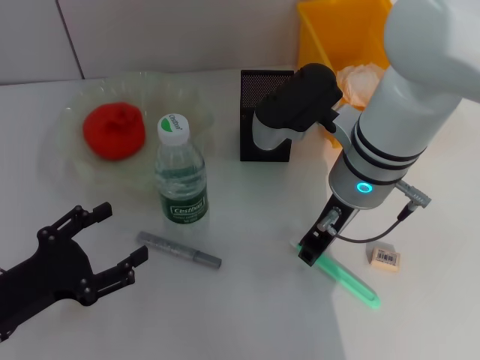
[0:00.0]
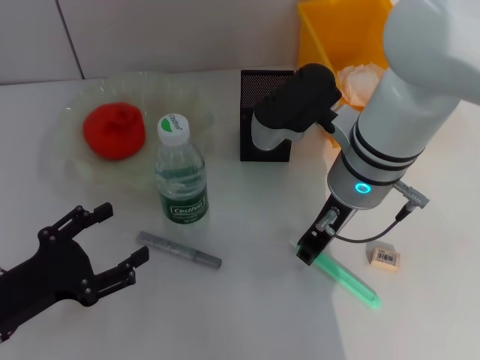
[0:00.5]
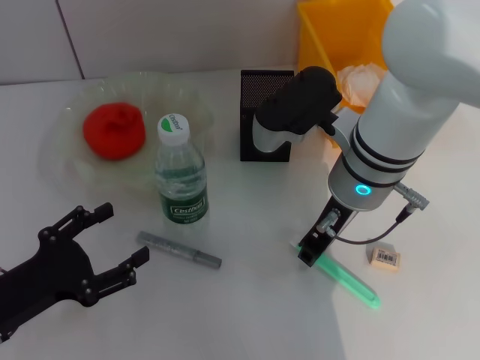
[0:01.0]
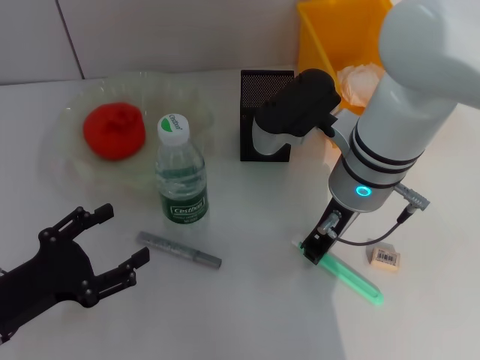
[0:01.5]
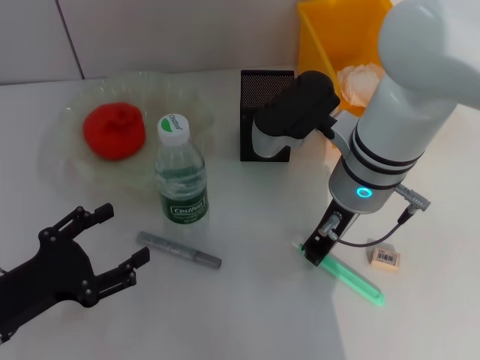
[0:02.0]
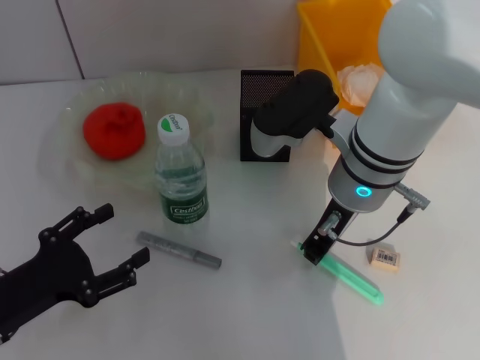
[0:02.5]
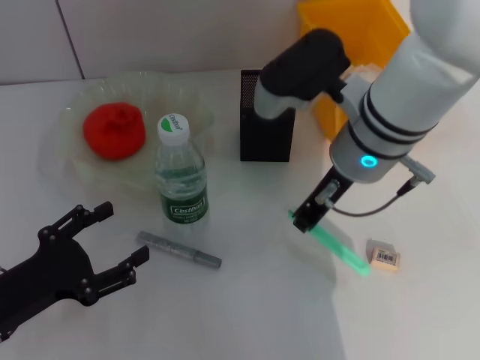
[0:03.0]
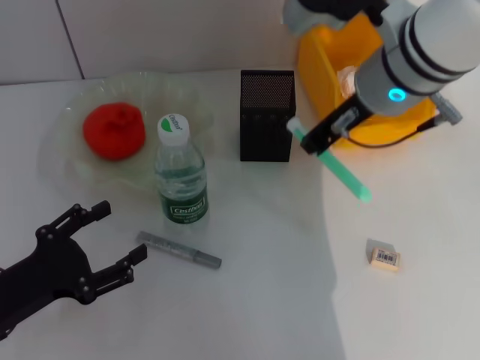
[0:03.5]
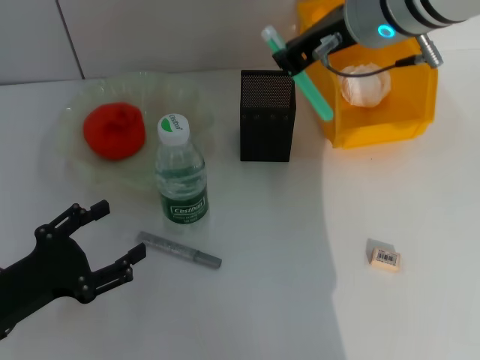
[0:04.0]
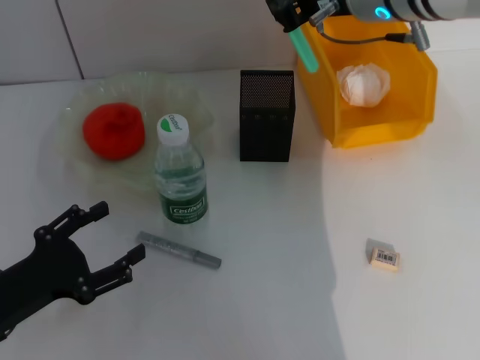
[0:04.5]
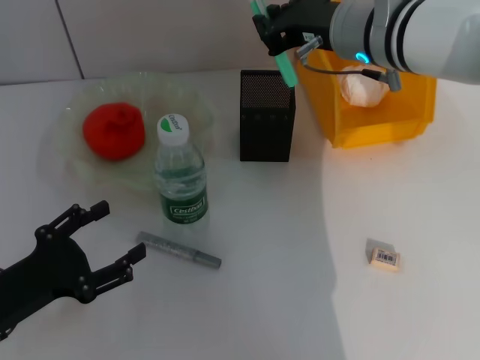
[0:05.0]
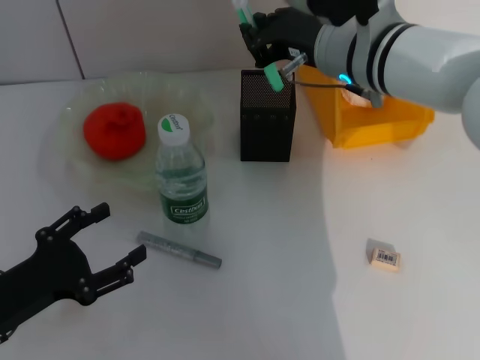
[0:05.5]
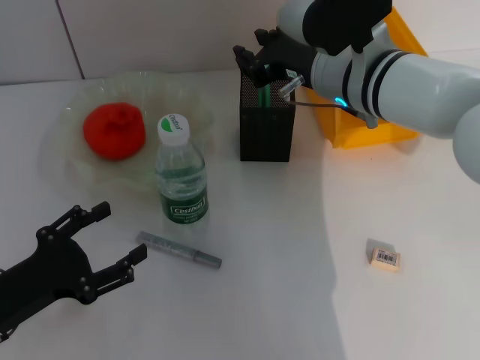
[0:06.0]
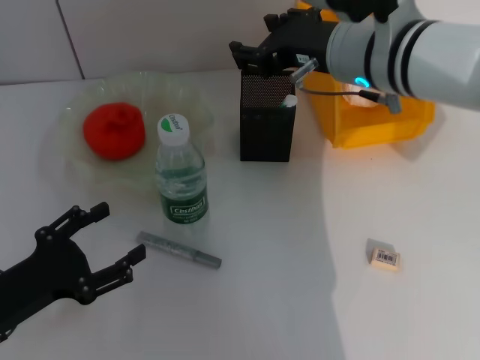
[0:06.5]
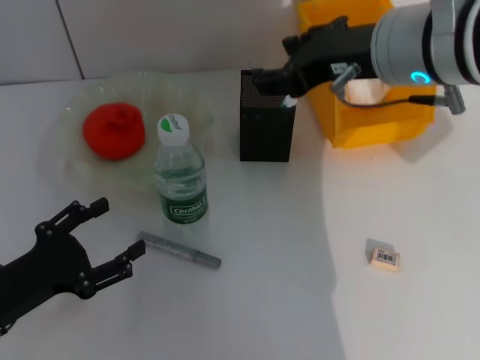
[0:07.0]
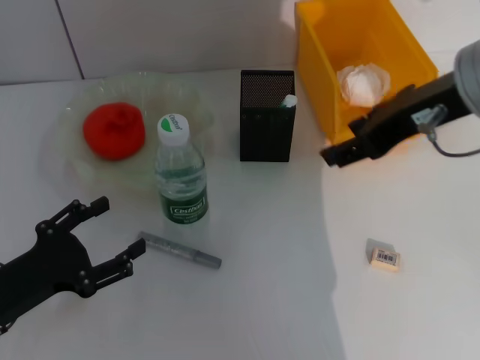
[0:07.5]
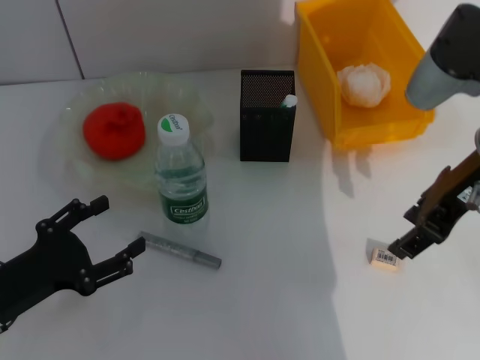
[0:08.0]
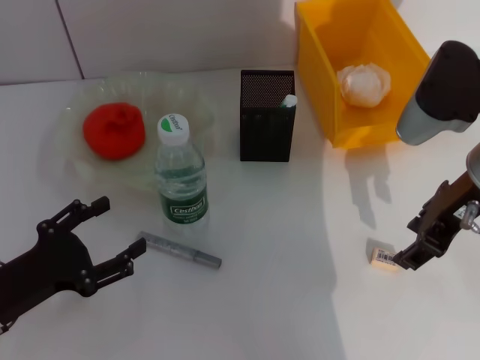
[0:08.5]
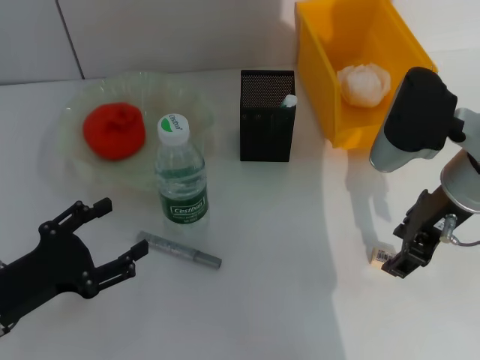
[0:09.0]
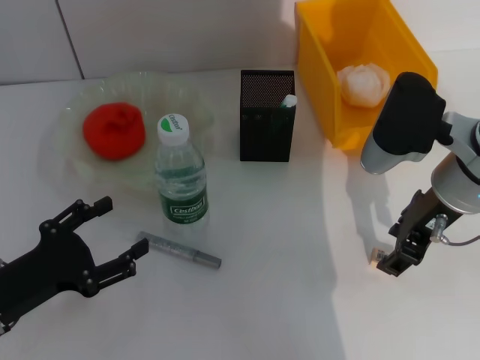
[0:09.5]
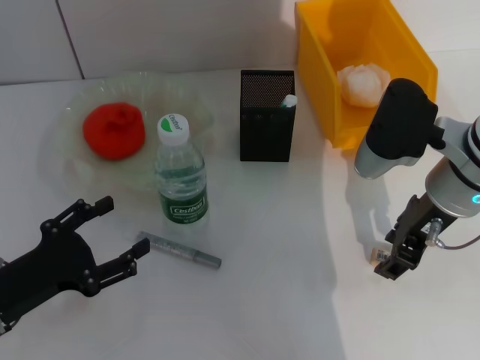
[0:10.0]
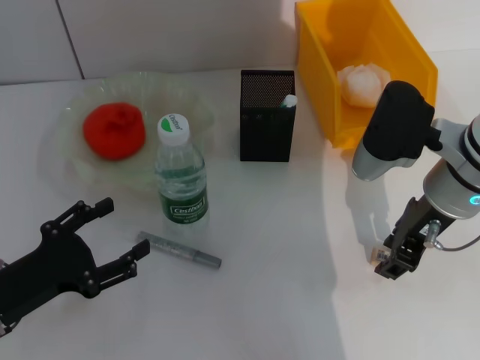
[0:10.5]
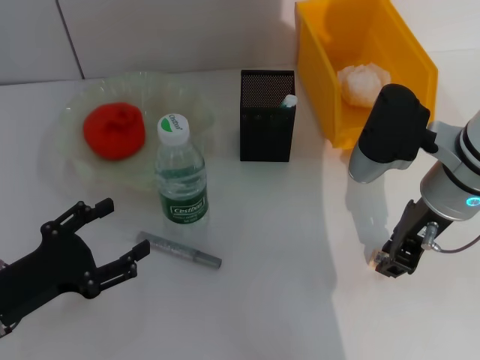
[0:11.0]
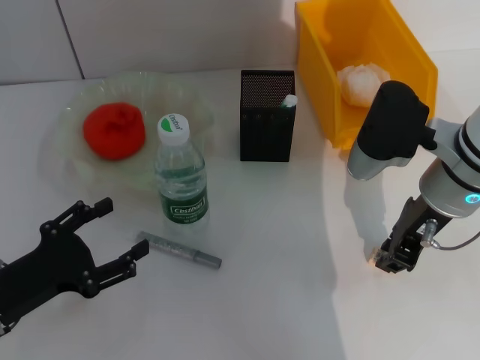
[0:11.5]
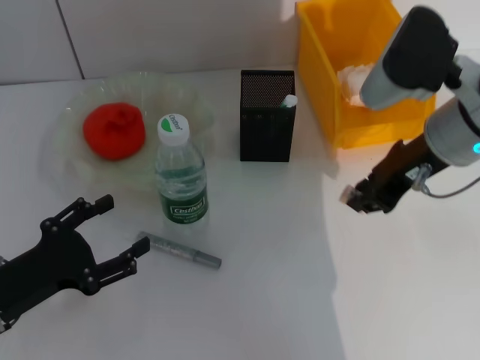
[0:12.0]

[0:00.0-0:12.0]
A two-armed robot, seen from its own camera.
Step, 0:00.0 to 0:02.0: Grab the blue utility knife with the right hand.
Step, 0:02.5 to 0:06.0: Place the blue utility knife into the pen holder with the right hand.
Step, 0:06.5 to 0:11.0: Grab the eraser with the right hand.
0:00.0 to 0:02.0: Both grippers stay put.
0:02.0 to 0:04.0: The right gripper shifts some 10 cm upward.
0:04.0 to 0:06.0: The right gripper travels downward by about 10 cm.
0:06.0 to 0:08.0: The right gripper goes approximately 10 cm to the right and backward, and opens up.
0:08.0 to 0:10.0: The right gripper goes some 5 cm downward.
0:10.0 to 0:12.0: The right gripper heads upward, covering about 5 cm, and closes up.

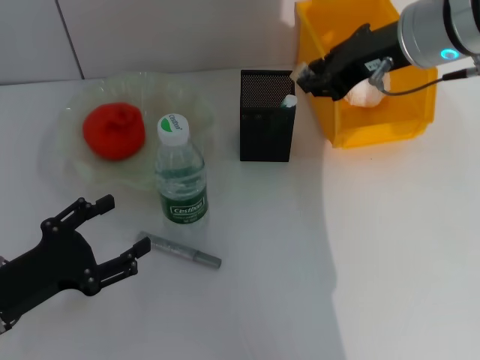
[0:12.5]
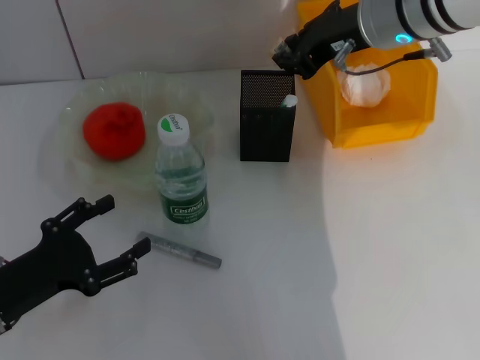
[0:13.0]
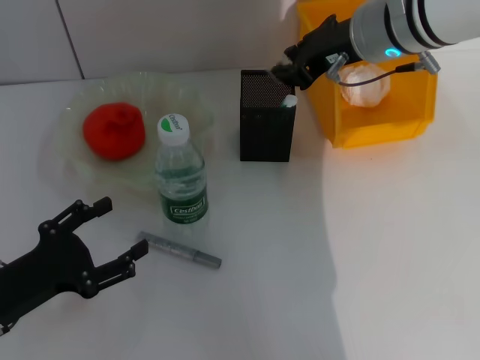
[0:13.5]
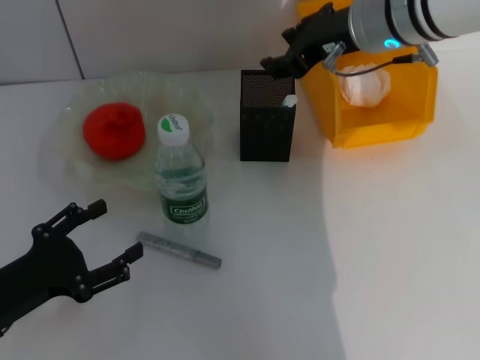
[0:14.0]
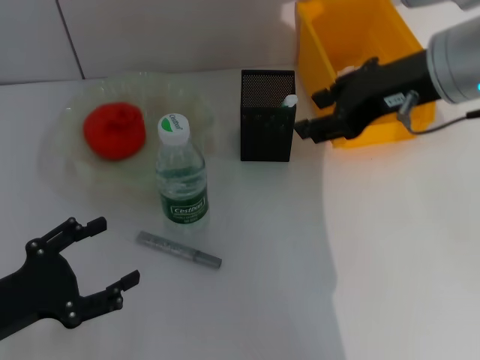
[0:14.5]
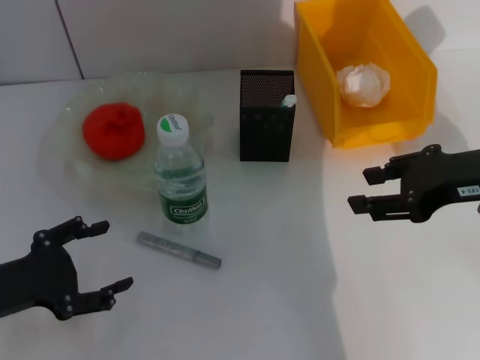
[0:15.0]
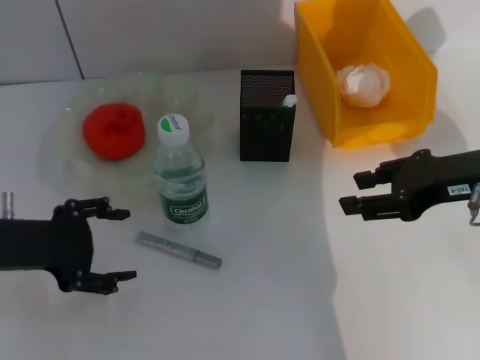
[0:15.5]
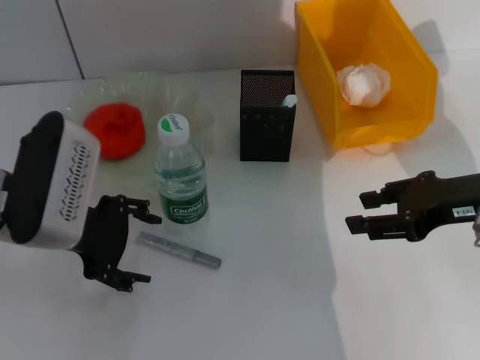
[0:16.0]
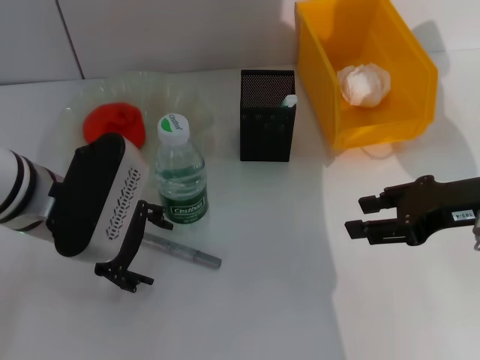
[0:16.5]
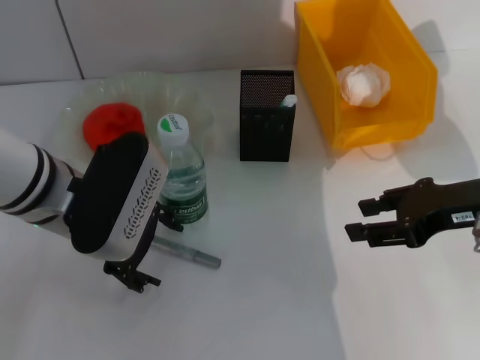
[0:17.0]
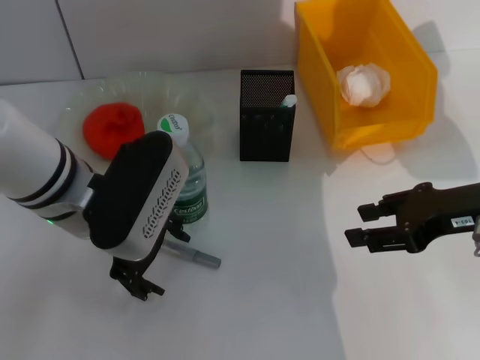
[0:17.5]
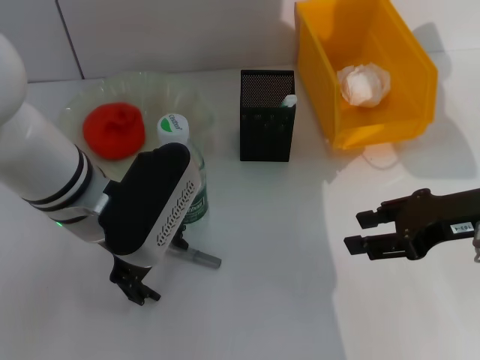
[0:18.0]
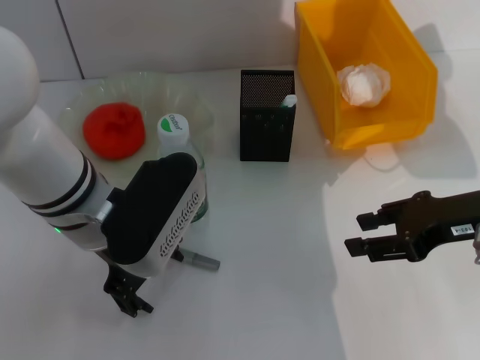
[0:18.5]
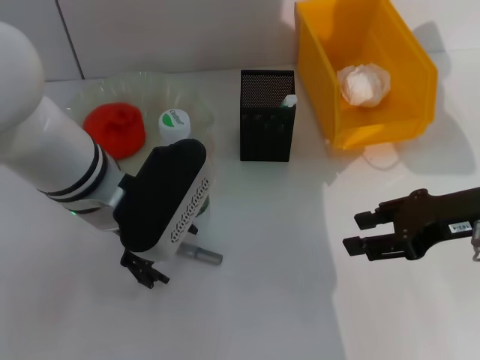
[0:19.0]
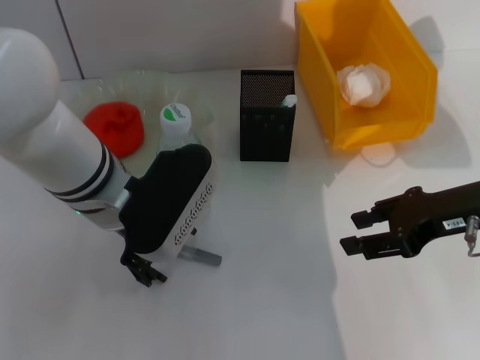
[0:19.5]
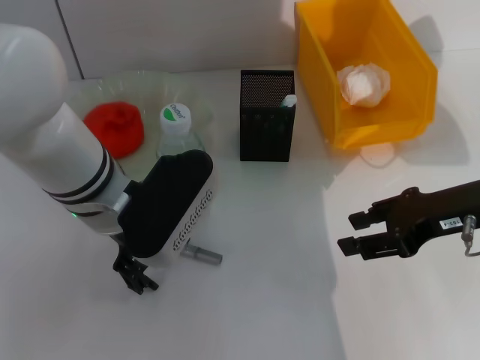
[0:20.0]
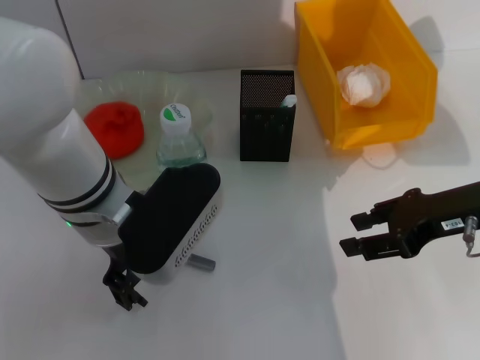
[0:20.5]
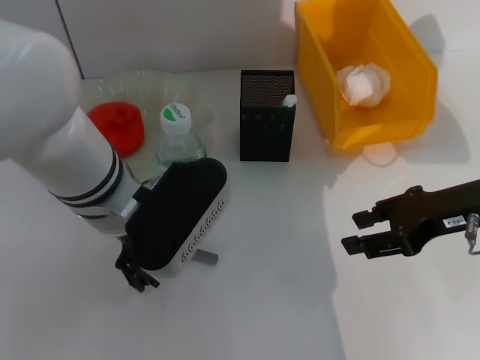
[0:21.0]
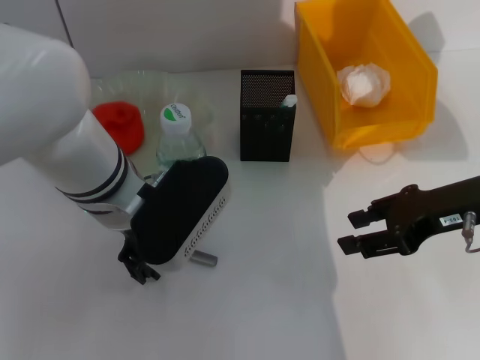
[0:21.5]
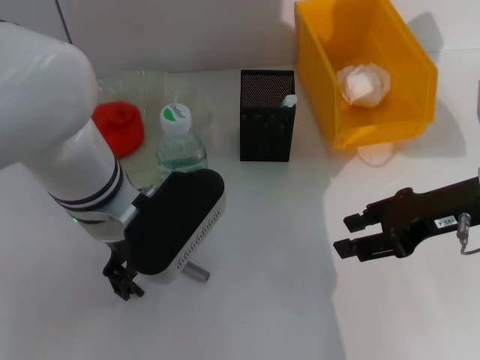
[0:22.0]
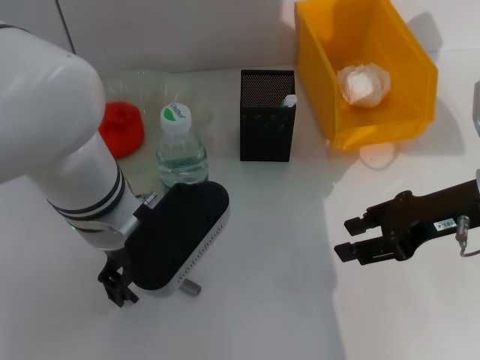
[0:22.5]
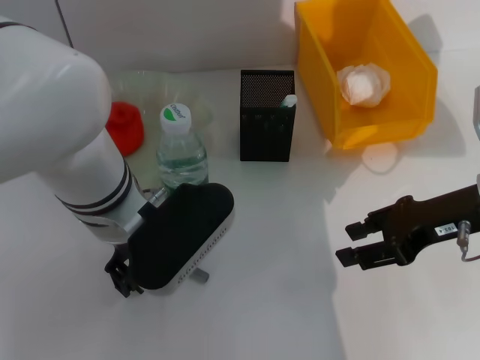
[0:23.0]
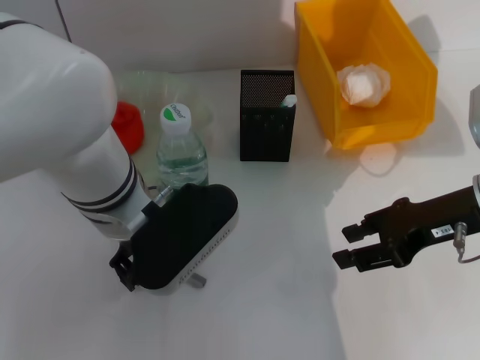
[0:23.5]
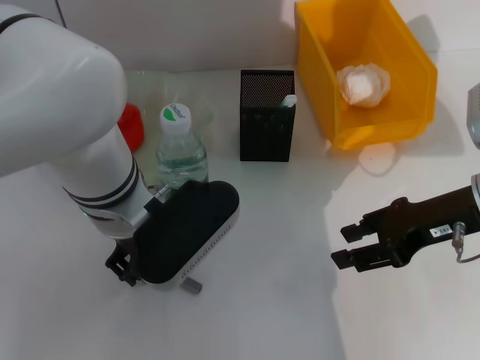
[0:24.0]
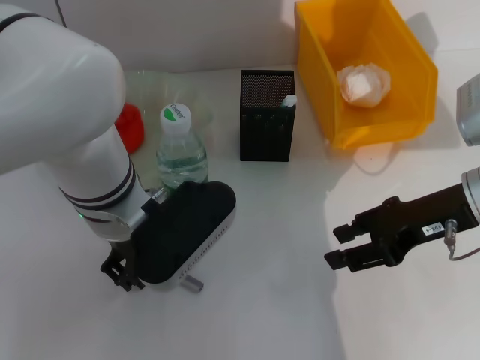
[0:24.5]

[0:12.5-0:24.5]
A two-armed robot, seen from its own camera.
0:12.5 to 0:14.5: The right gripper ends up roughly 5 cm from where it was, and opens up.
0:14.5 to 0:16.5: The left gripper moves forward, to the right and upward, roughly 20 cm, while the right gripper shifts about 10 cm downward, to the right and backward.
0:16.5 to 0:18.5: The grippers stay close to where they were, moving slightly.
0:18.5 to 0:22.5: The grippers move only a little.
0:22.5 to 0:24.5: The left gripper closes up.

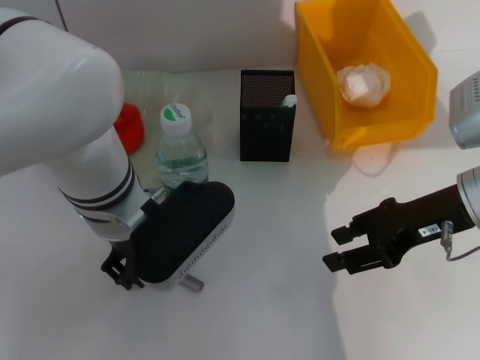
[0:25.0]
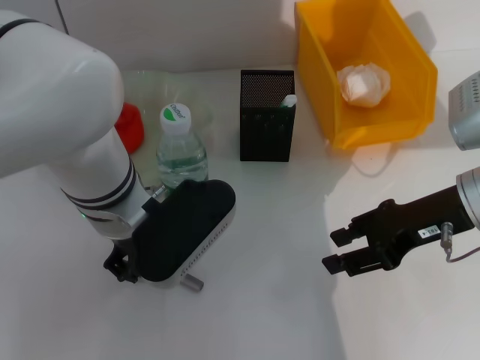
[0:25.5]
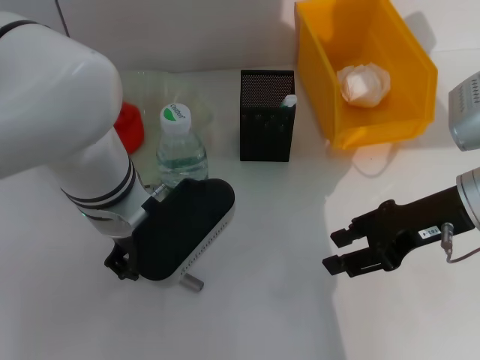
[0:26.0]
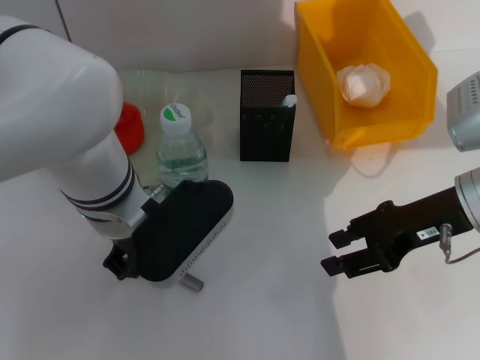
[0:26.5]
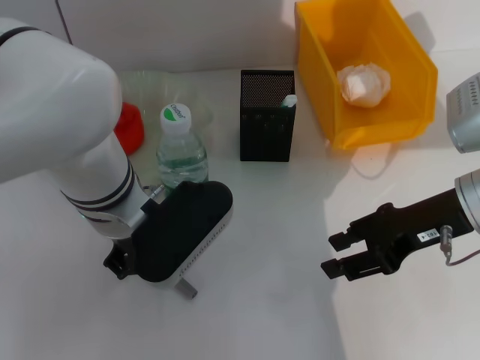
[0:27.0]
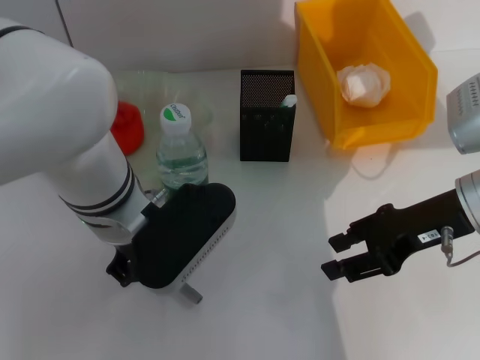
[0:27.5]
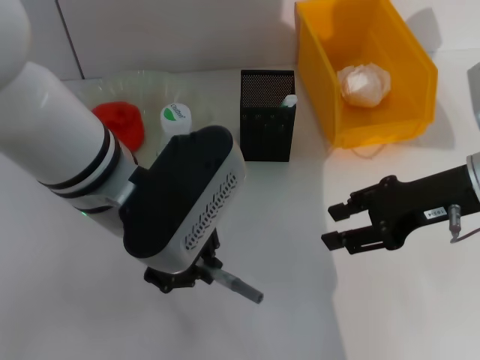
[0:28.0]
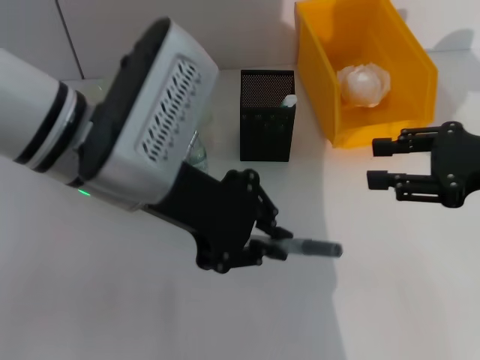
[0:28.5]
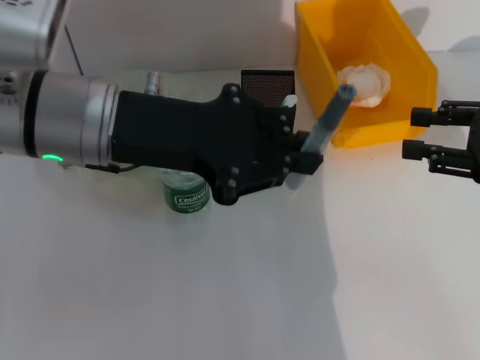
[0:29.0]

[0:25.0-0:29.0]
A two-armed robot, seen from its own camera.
Step, 0:25.0 to 0:27.0: Grab the gray glue with the left hand.
0:25.0 to 0:27.0: The two grippers keep their place.
0:27.0 to 0:29.0: The left gripper travels upward by some 10 cm, while the right gripper travels to the right by some 10 cm.
